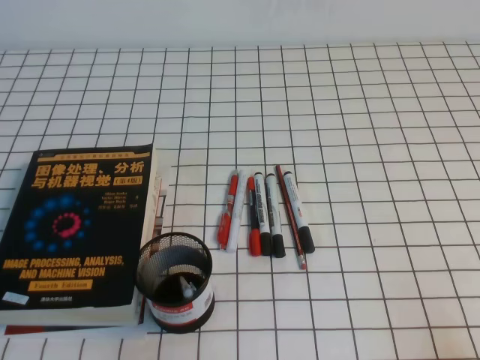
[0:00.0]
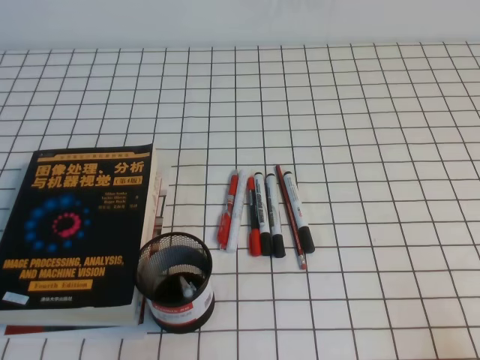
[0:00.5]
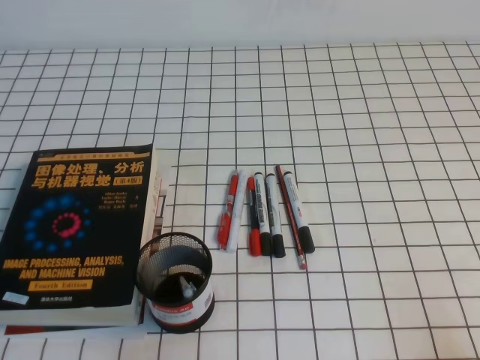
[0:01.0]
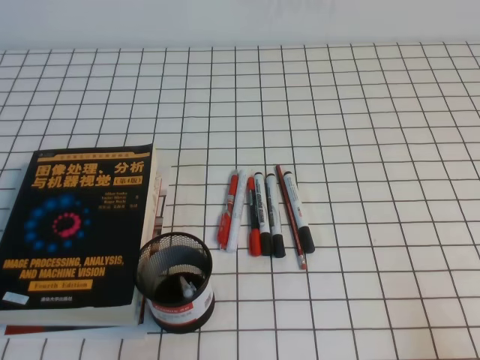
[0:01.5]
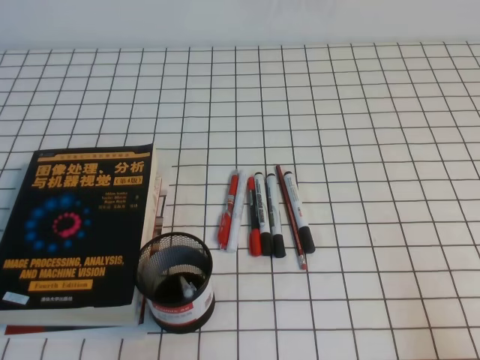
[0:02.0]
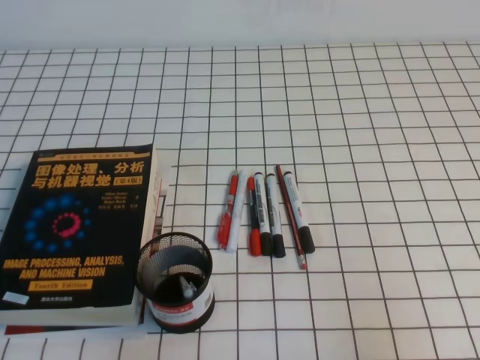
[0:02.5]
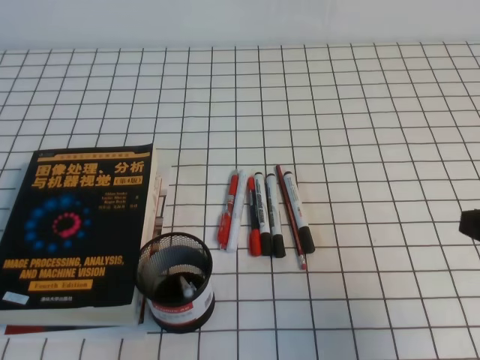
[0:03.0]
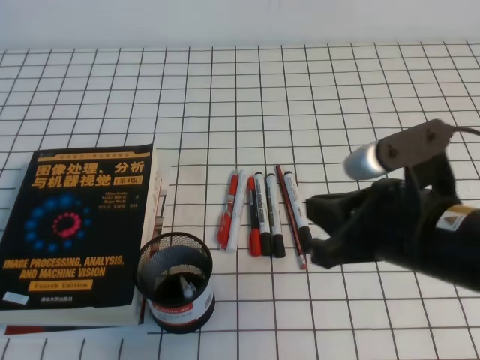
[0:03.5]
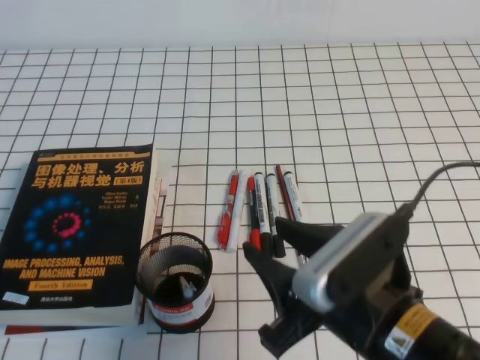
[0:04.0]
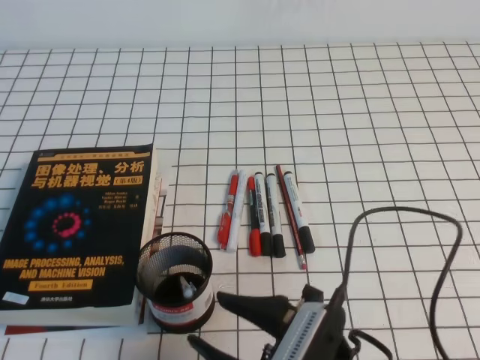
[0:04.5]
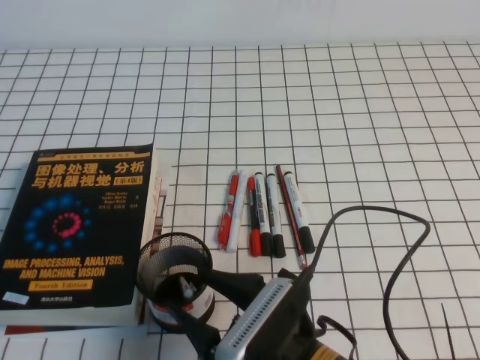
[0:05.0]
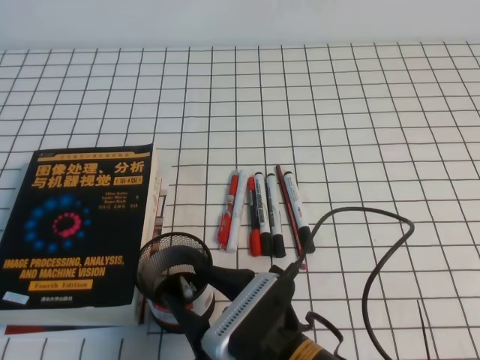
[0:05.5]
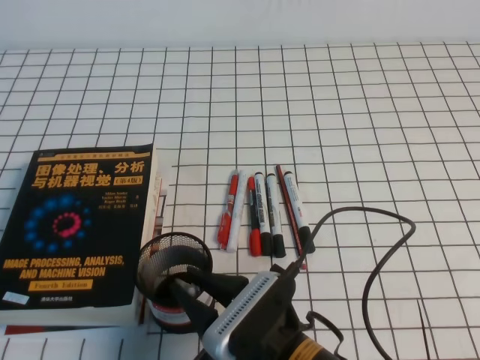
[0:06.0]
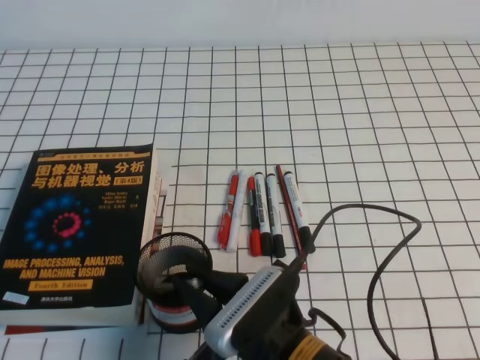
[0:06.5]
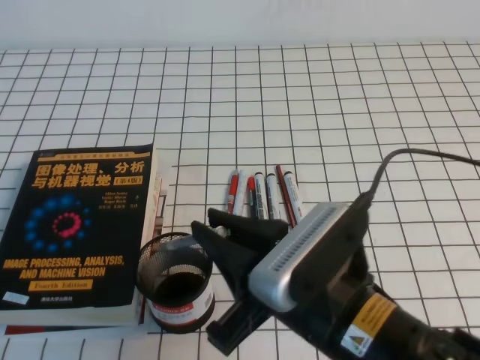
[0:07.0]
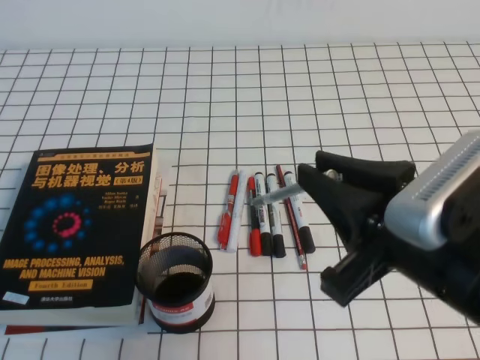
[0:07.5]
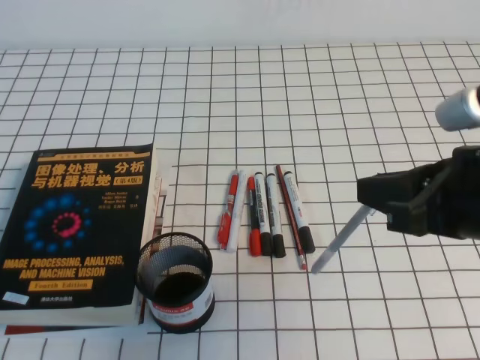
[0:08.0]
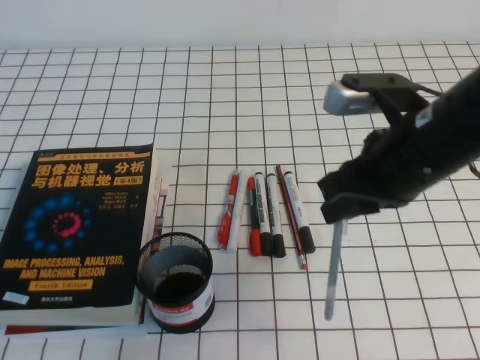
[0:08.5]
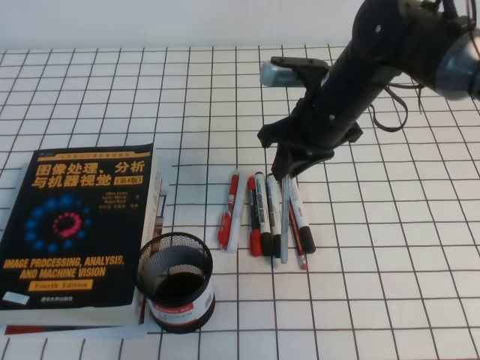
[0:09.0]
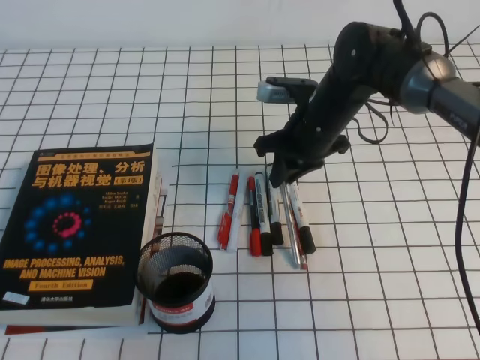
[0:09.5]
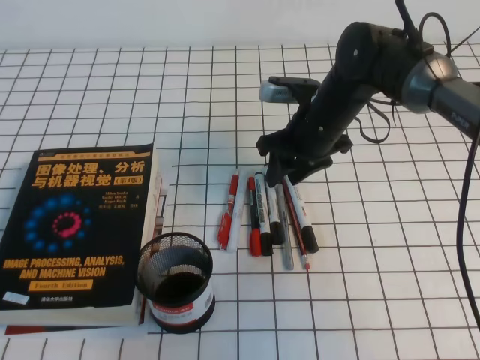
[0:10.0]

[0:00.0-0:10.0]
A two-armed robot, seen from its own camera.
0:02.0 to 0:04.0: The right gripper moves to the left, some 20 cm, and opens its fingers.
0:04.0 to 0:06.0: The right gripper heads downward and to the left, covering approximately 10 cm.
0:06.0 to 0:08.0: The right gripper goes roughly 25 cm upward and to the right.
0:08.0 to 0:10.0: The right gripper is displaced forward and downward by approximately 25 cm, and opens.

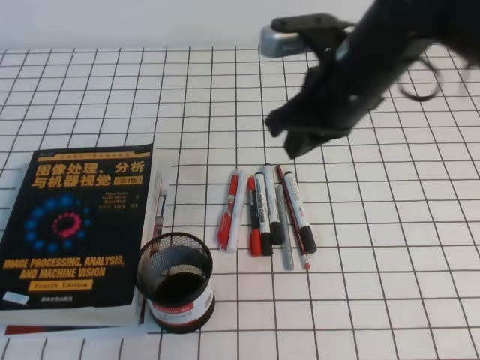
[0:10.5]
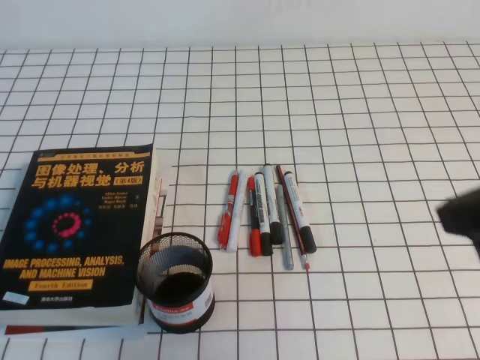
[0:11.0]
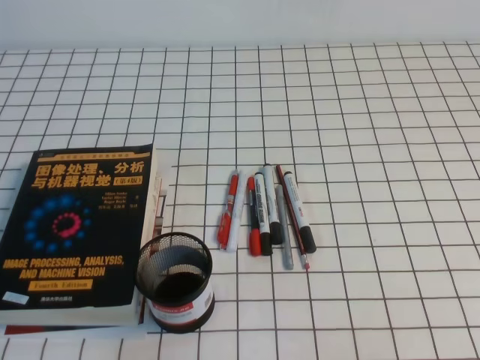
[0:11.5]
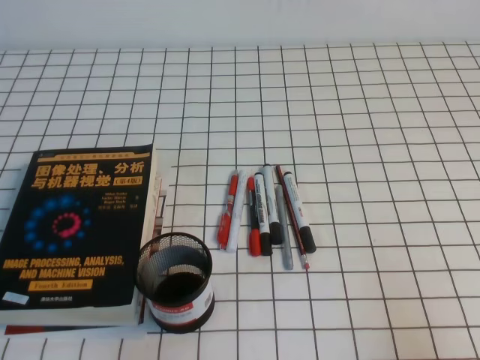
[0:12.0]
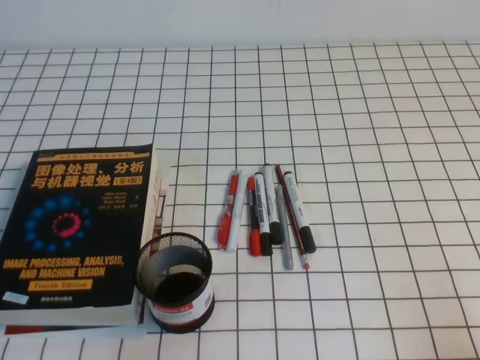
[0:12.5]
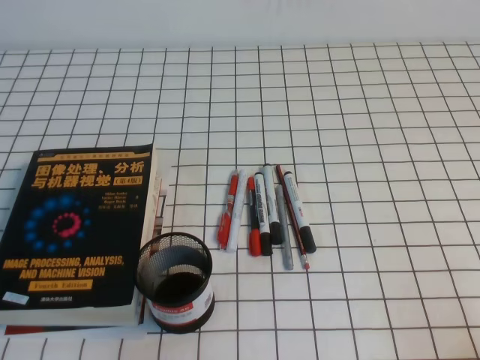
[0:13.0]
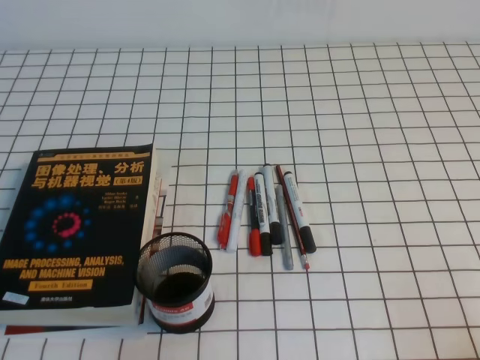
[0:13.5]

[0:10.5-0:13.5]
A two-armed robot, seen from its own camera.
Step, 0:10.5 to 0:13.5: Pick up the pen from the pen holder.
0:10.5 to 0:12.0: The right gripper shifts some 35 cm backward and to the right.
